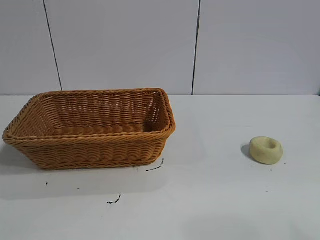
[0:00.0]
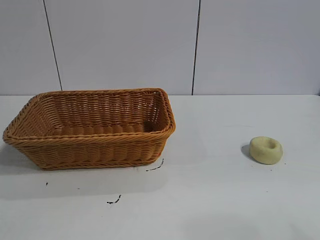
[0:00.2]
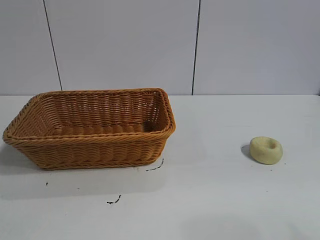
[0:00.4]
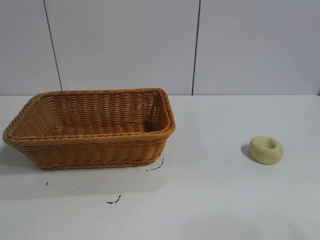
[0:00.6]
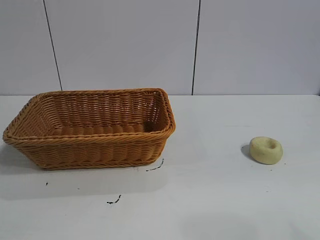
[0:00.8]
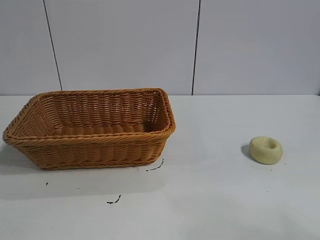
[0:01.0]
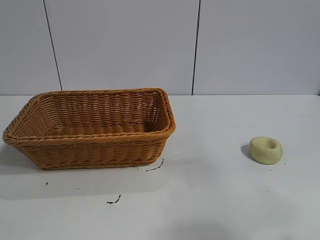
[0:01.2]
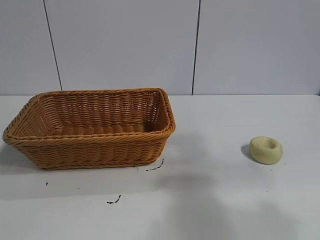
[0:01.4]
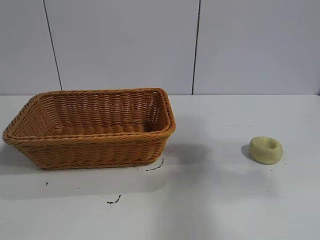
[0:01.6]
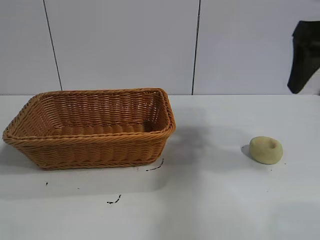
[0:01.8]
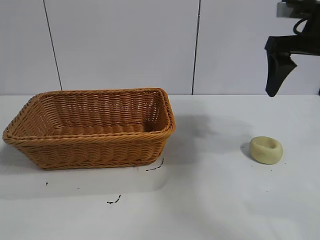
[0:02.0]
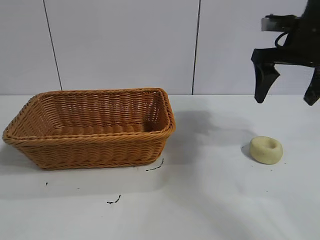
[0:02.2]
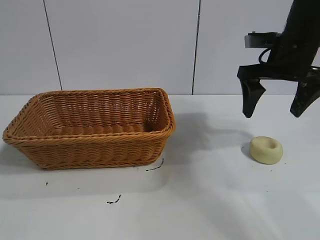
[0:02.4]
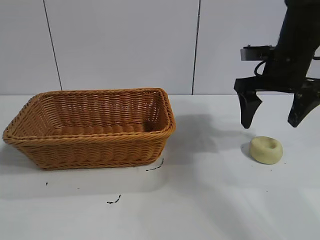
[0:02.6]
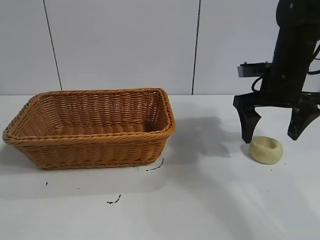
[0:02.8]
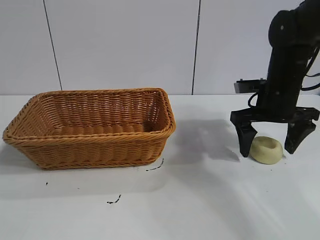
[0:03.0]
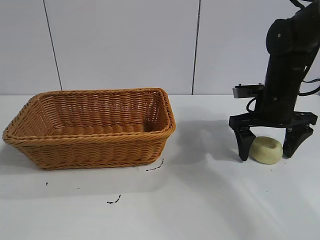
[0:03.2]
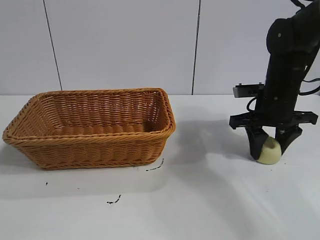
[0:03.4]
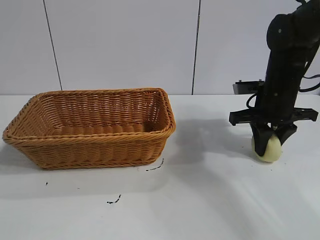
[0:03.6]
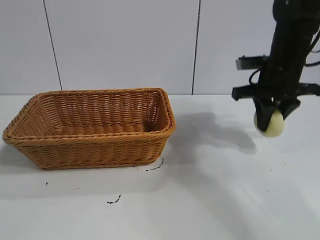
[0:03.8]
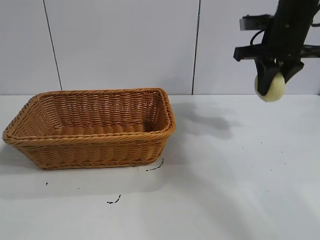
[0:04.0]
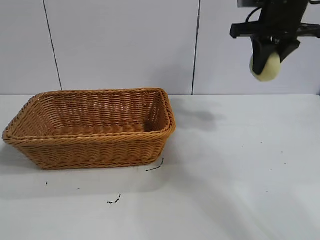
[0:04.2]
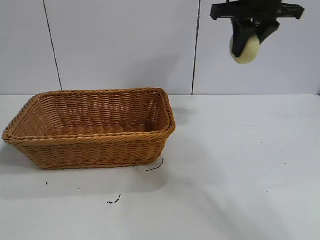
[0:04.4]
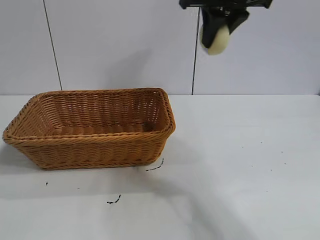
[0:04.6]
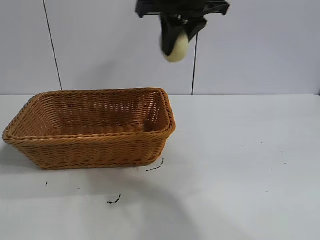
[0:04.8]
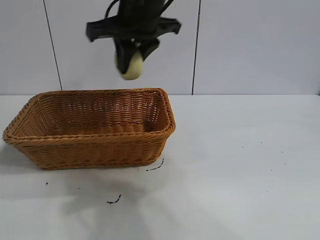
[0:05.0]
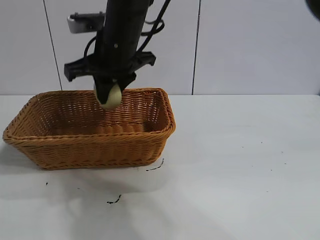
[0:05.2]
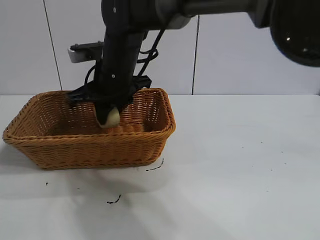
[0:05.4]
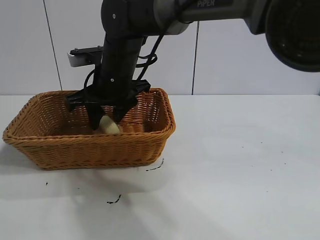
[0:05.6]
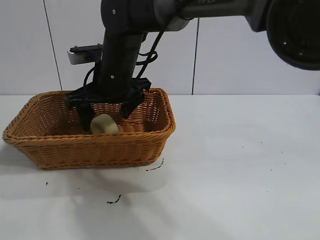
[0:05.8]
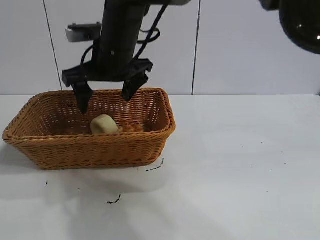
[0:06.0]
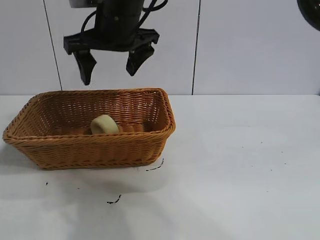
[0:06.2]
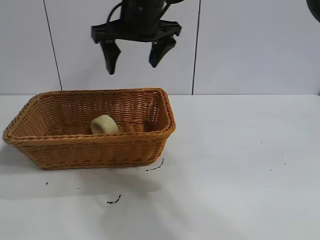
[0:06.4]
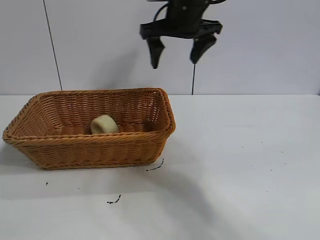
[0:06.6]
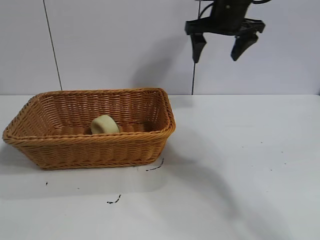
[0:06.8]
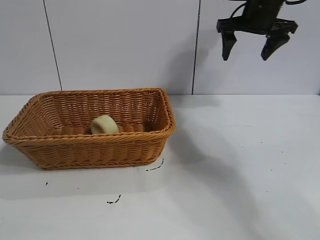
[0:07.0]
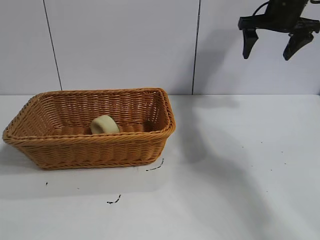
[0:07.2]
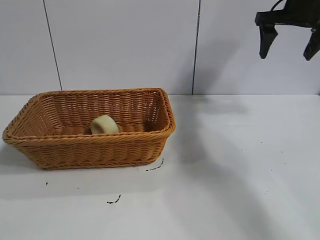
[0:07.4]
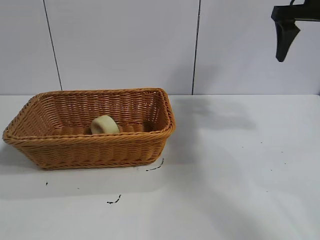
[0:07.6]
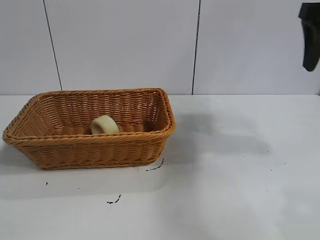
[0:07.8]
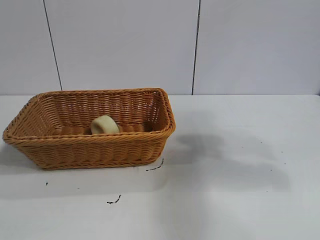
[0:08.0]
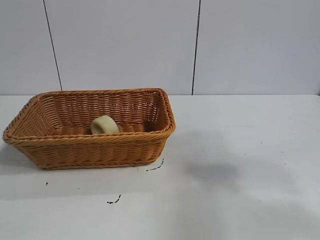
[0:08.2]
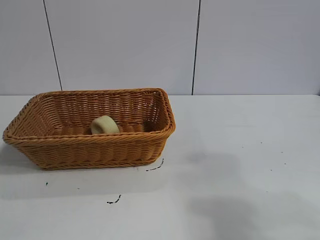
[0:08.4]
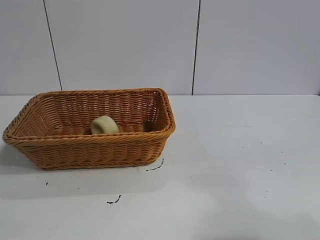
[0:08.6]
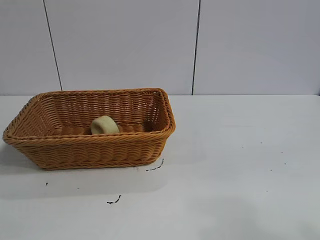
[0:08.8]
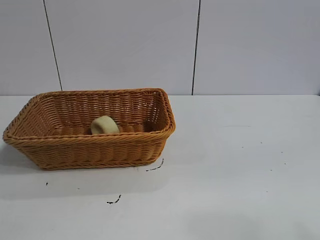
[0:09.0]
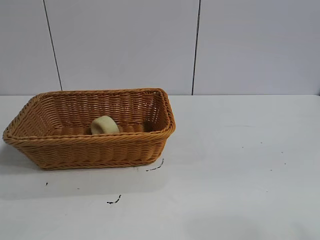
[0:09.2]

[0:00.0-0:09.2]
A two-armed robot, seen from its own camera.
Task of the whole recording: pick up the egg yolk pastry and put it into the basket.
Step, 0:00.8 to 0:03.4: Grasp egg yolk pastry with right gripper.
Step, 0:03.6 to 0:05.8: Place the egg yolk pastry in the basket with right gripper.
